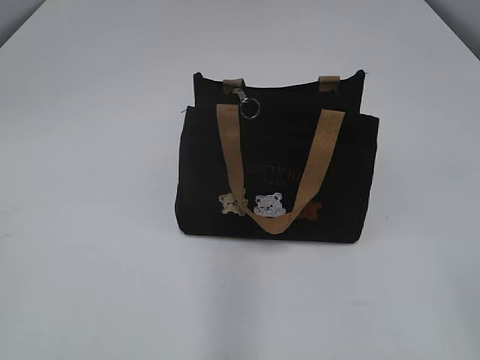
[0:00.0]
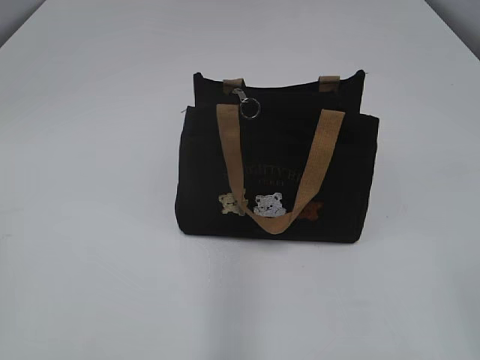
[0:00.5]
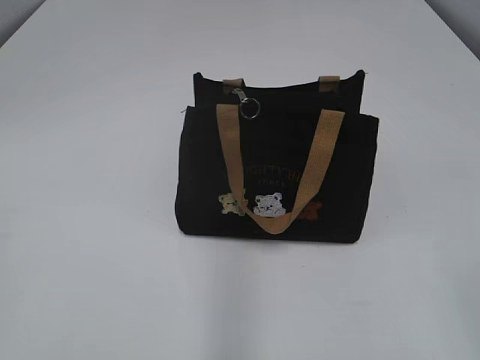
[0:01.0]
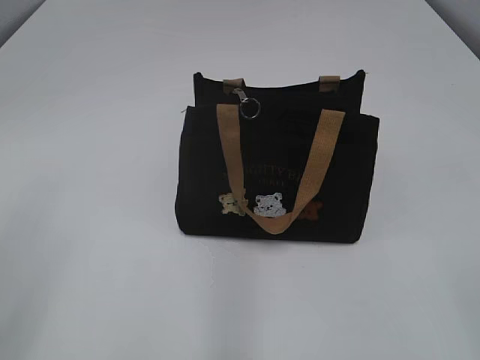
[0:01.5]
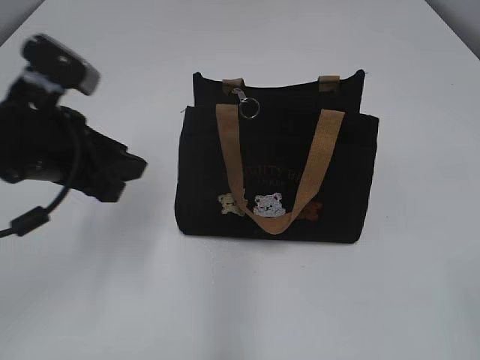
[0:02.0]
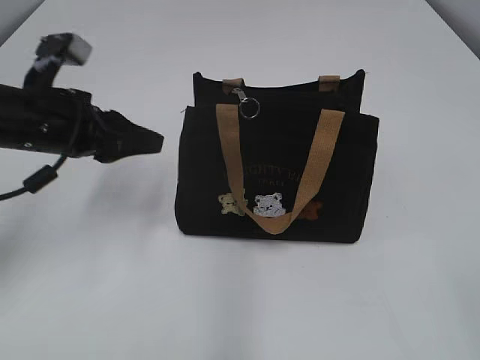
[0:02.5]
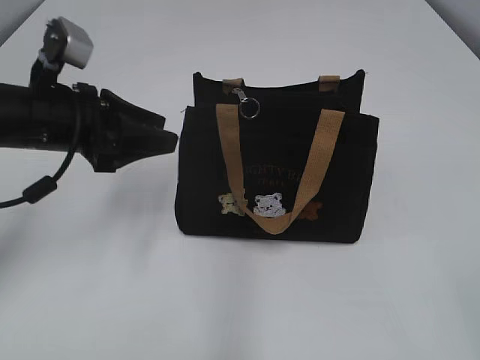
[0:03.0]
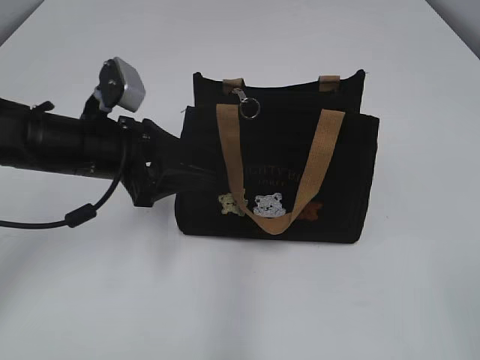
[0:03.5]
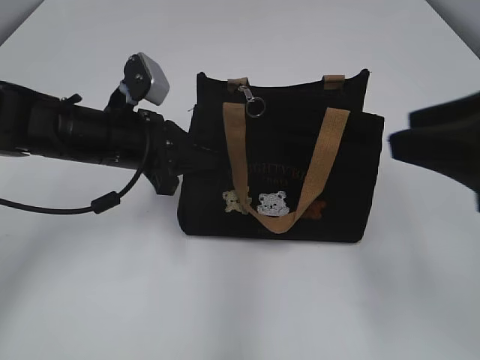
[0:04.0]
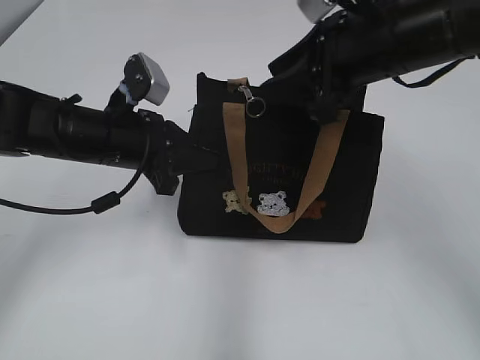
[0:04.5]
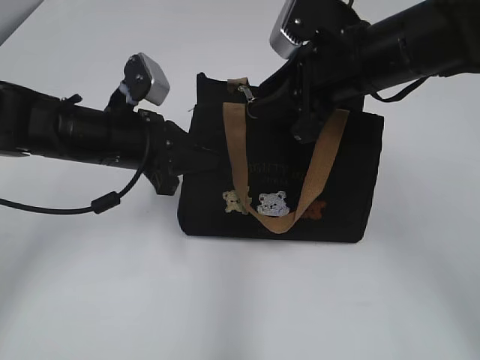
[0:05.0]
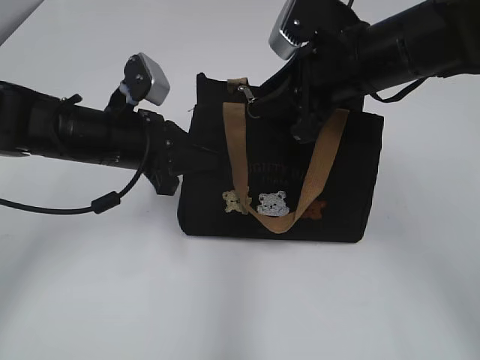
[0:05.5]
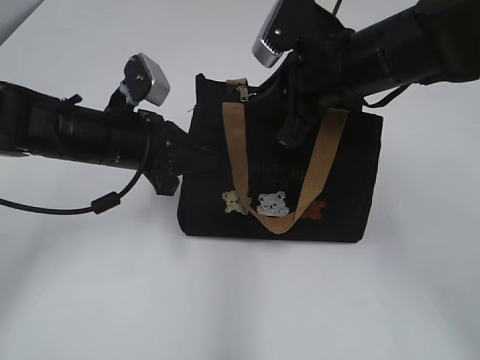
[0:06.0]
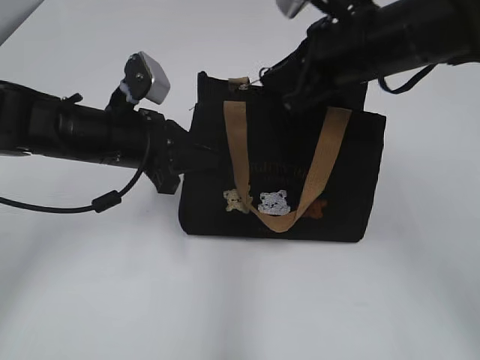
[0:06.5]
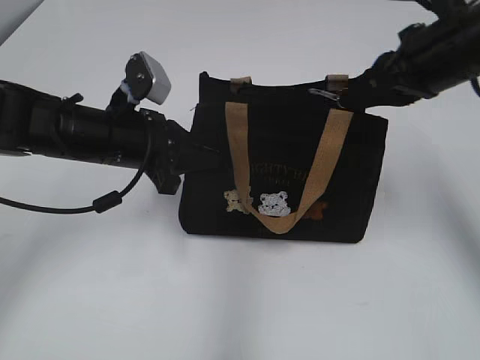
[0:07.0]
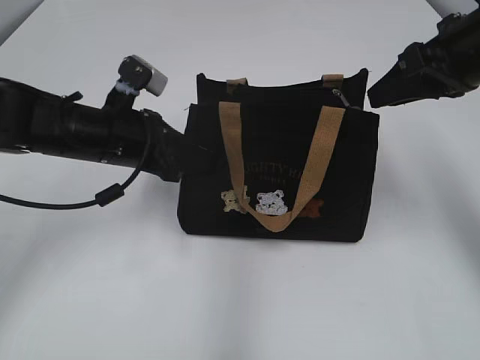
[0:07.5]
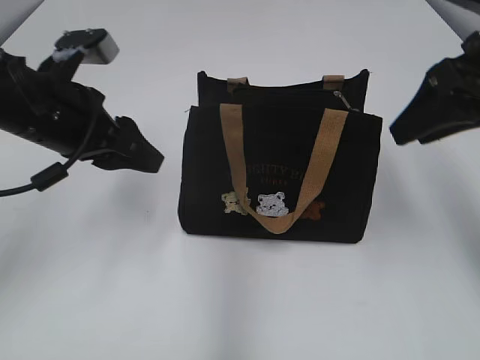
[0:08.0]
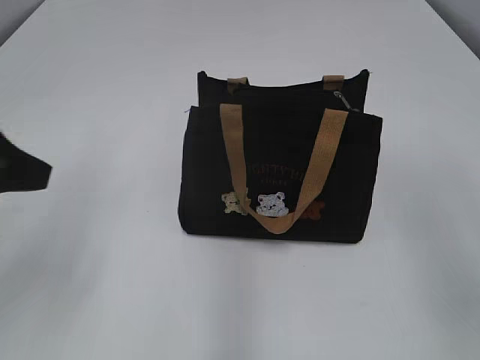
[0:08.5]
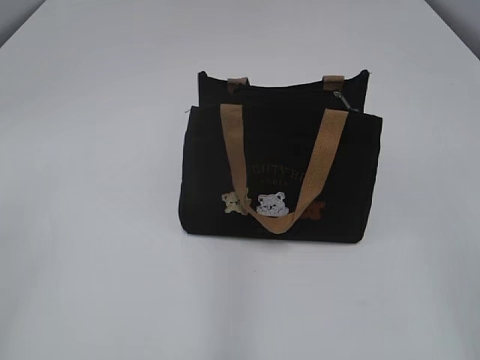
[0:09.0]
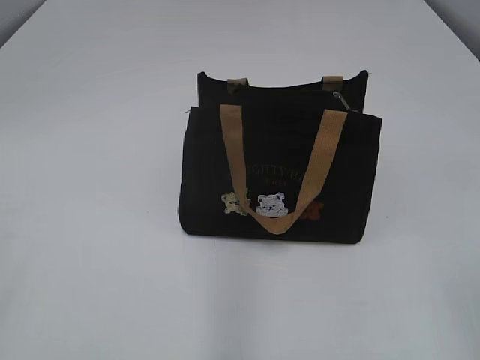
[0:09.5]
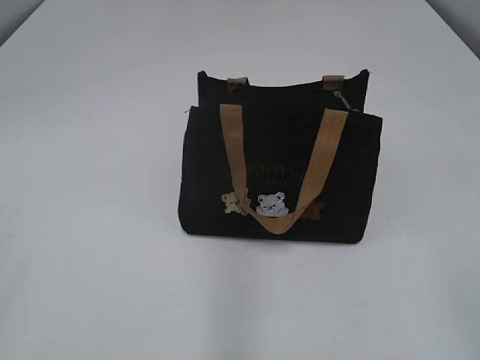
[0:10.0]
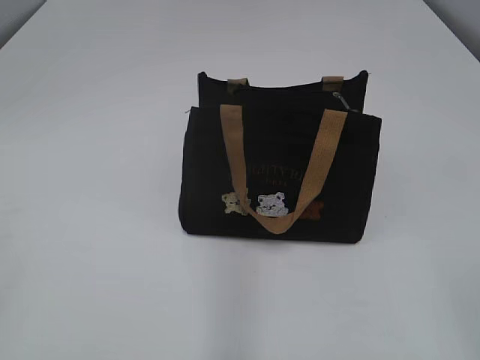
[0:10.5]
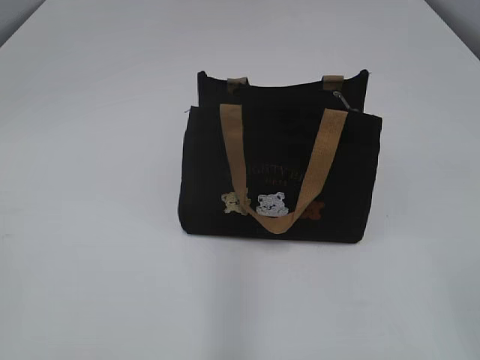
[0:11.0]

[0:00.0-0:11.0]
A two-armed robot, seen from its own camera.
Step, 0:00.0 to 0:07.0: Pull open the zipper with your right hand.
0:02.0 to 0:03.5: The left gripper moves forward and downward, about 10 cm, and opens up.
0:03.5 to 0:05.5: The left gripper closes up, while the right gripper heads forward and to the left, covering approximately 35 cm.
0:05.5 to 0:07.5: The right gripper heads to the right, covering roughly 10 cm, and closes.
0:07.5 to 0:09.0: The left gripper travels backward, upward and to the left by approximately 35 cm, and opens. Meanwhile the right gripper heads backward, covering about 25 cm, and opens up.

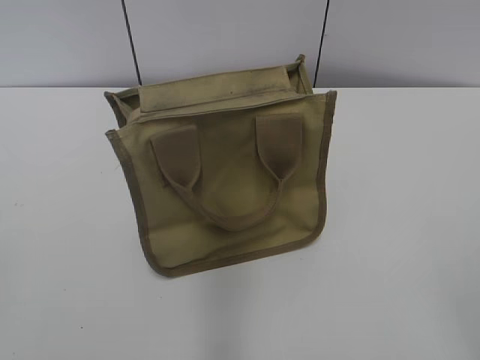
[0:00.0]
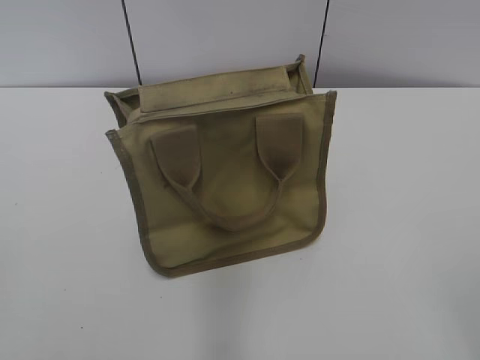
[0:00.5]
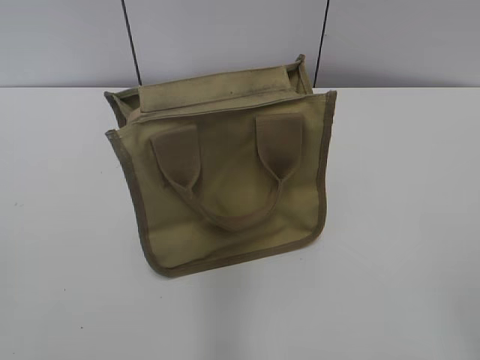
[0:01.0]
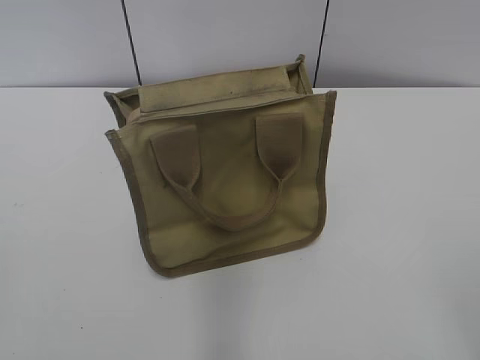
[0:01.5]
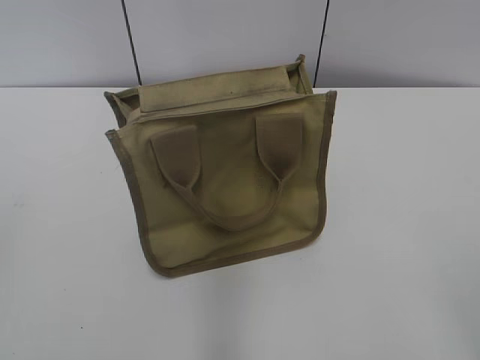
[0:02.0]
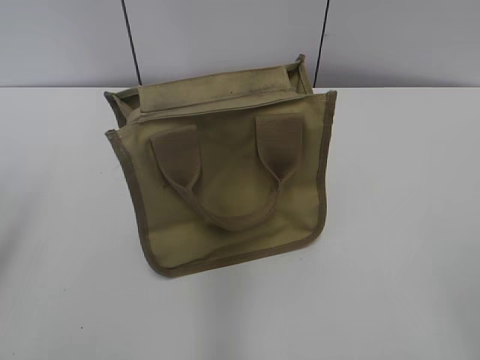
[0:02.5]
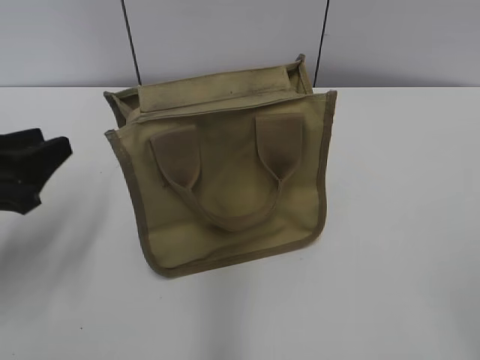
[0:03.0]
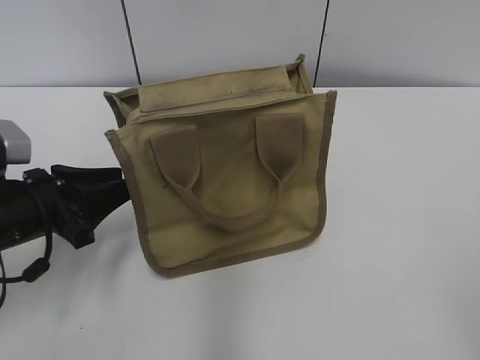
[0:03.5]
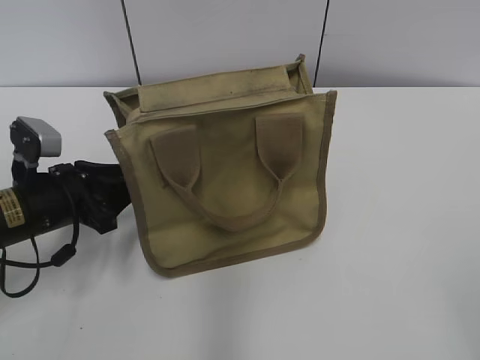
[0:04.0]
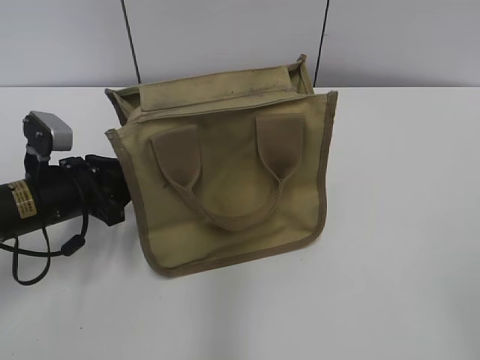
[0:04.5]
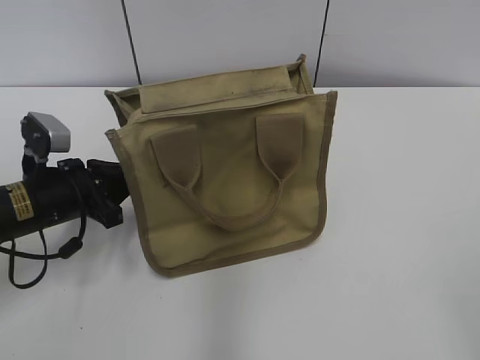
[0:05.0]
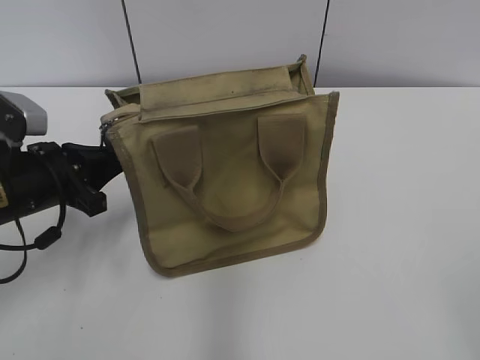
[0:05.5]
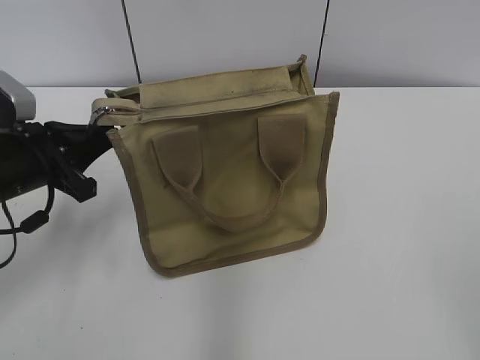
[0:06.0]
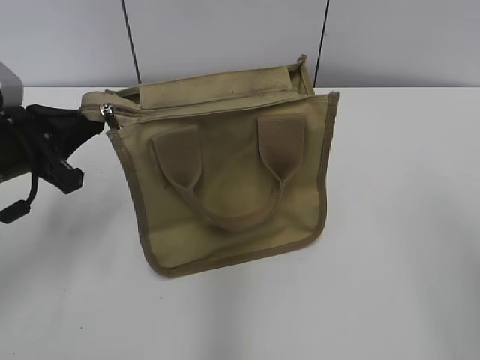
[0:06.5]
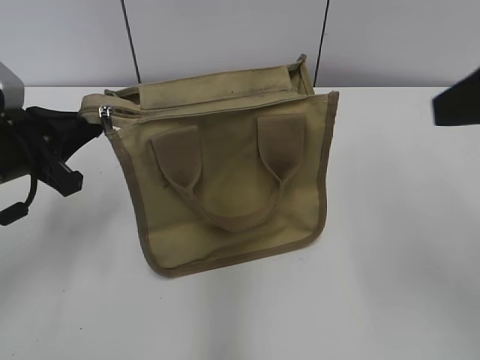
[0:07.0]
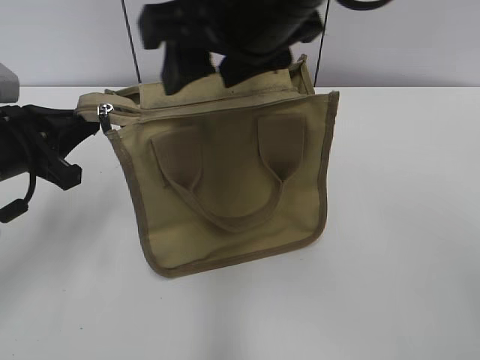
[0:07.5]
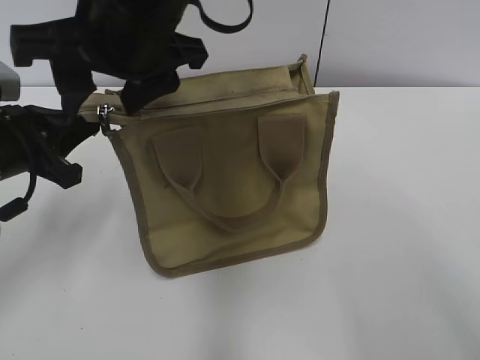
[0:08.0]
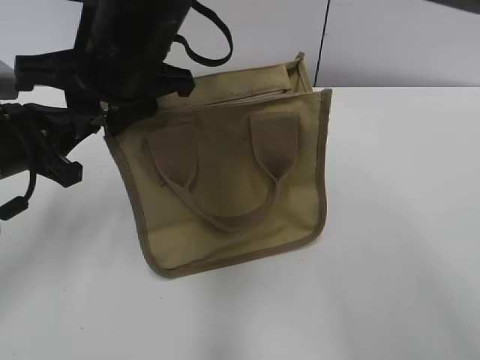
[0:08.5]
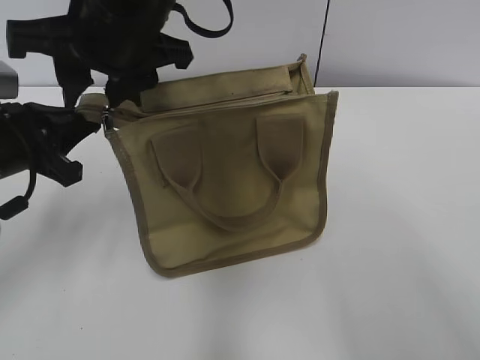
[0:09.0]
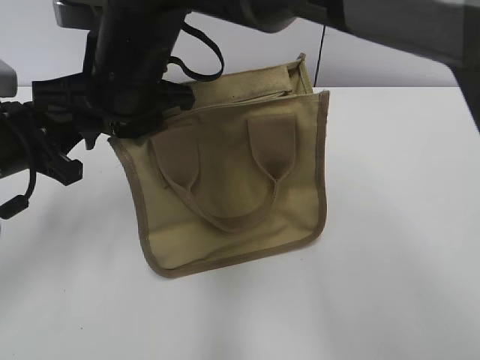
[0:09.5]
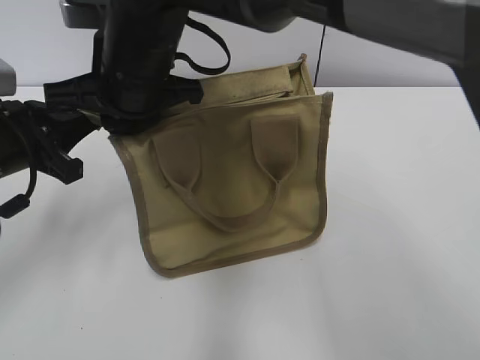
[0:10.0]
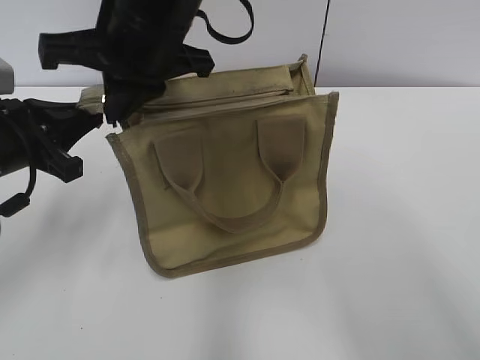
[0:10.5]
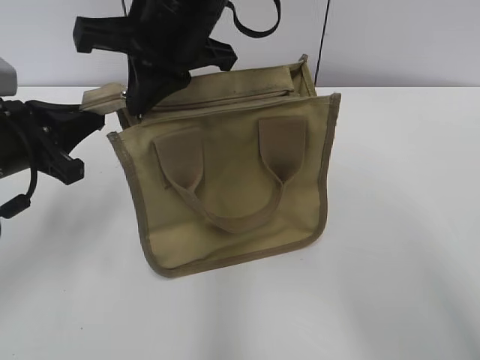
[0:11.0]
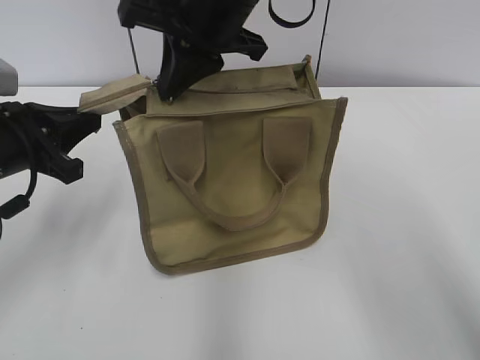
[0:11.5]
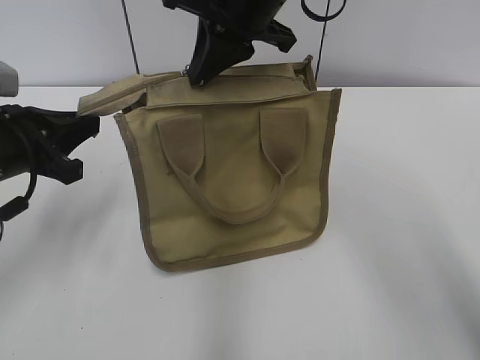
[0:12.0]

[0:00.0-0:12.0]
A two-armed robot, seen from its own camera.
0:02.0 to 0:04.0: The left gripper goes roughly 30 cm forward and downward.
0:04.0 to 0:06.0: The left gripper shifts roughly 5 cm upward, and closes up.
0:06.0 to 0:08.0: The right gripper moves to the left and forward, about 40 cm.
0:08.0 to 0:10.0: The right gripper shifts approximately 5 cm downward, and closes.
0:10.0 to 0:12.0: The right gripper travels to the right, forward and upward by roughly 15 cm.

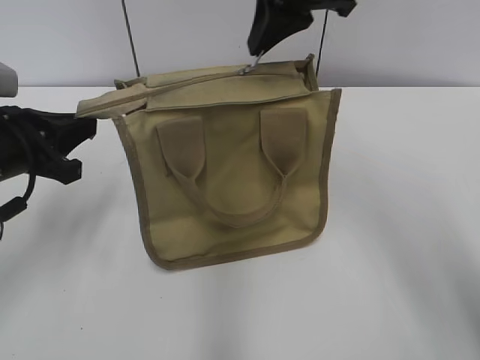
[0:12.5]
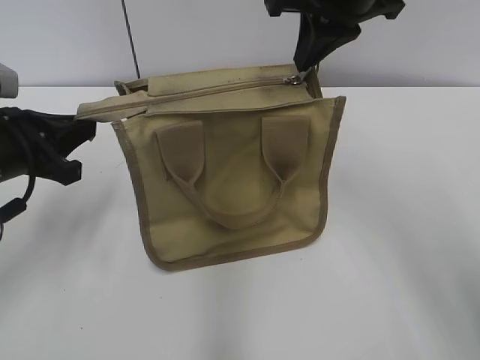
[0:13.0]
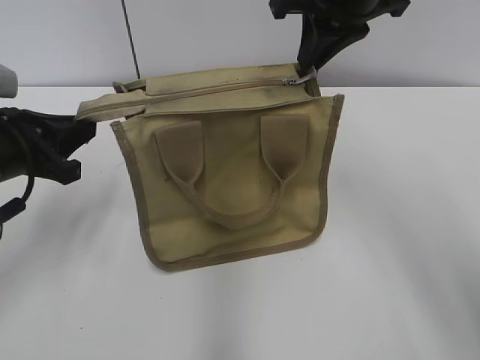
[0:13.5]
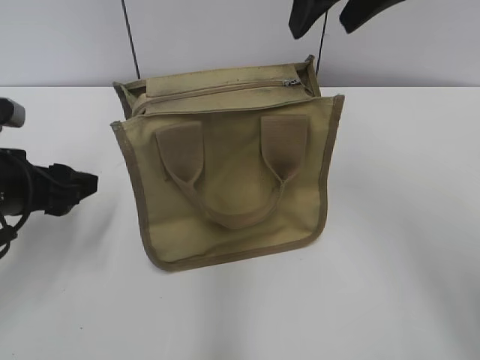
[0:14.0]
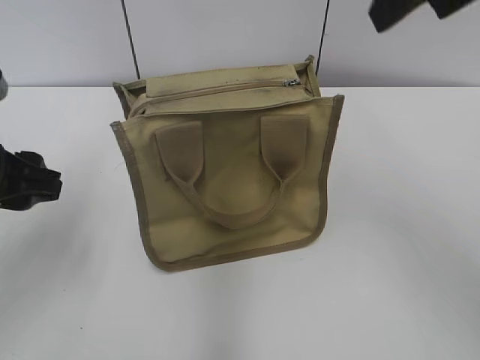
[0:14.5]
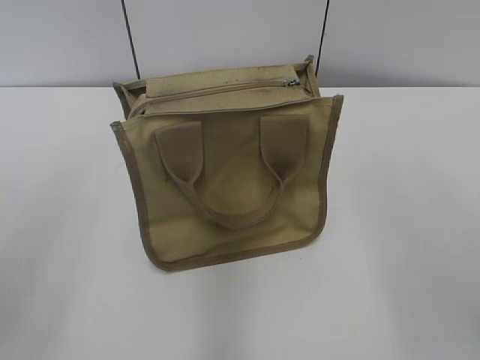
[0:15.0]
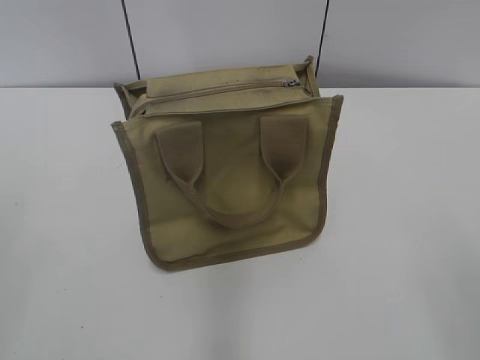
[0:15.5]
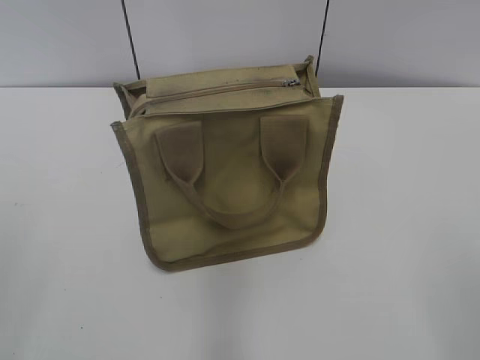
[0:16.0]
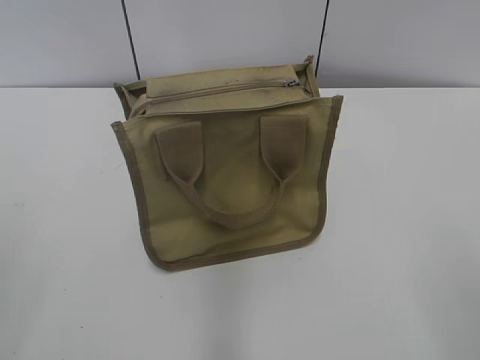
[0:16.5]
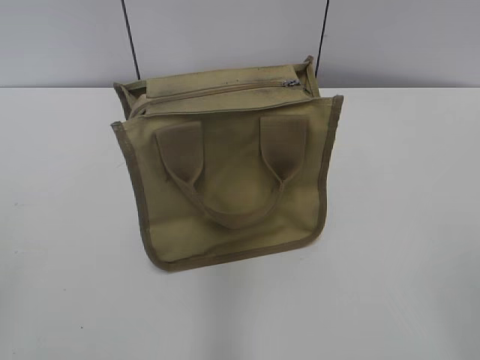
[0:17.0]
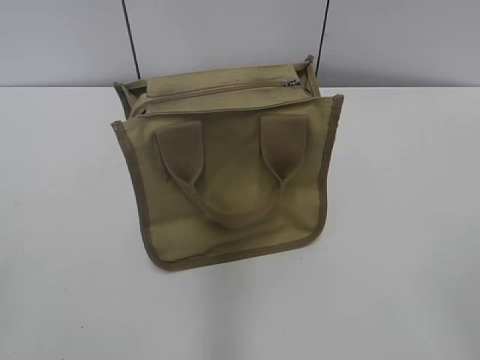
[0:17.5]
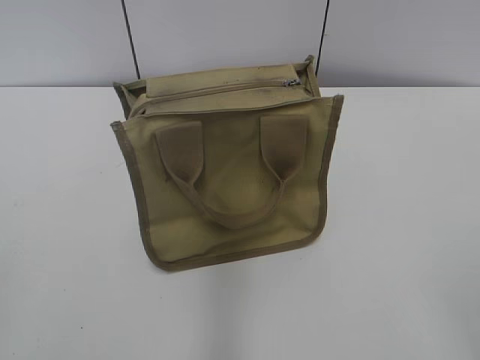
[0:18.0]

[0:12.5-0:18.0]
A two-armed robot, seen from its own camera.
0:12.5 to 0:14.5: The right gripper moves backward, to the right and upward, roughly 15 cm, and opens its fingers, while the left gripper changes place by approximately 5 cm, and opens its fingers.
0:14.5 to 0:16.0: The right gripper shifts some 30 cm backward, downward and to the right. The left gripper travels backward by approximately 20 cm.
